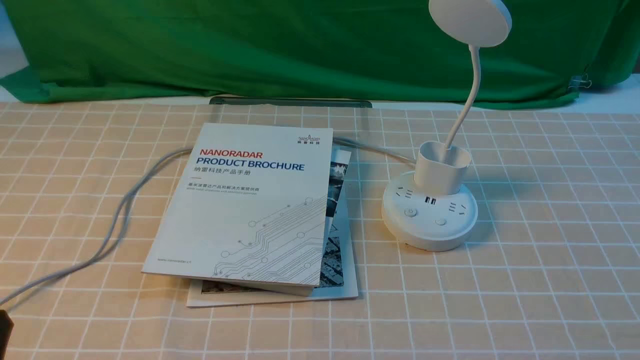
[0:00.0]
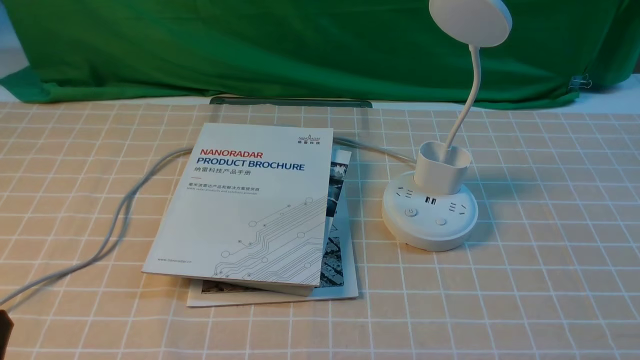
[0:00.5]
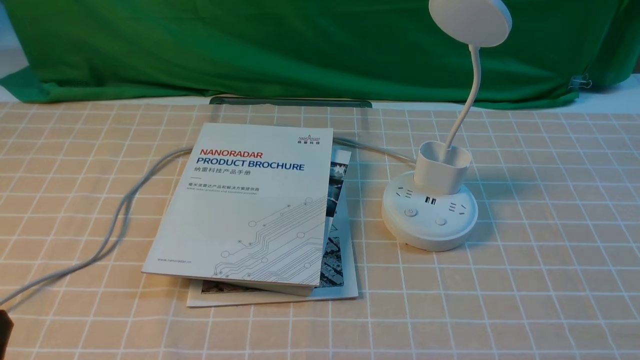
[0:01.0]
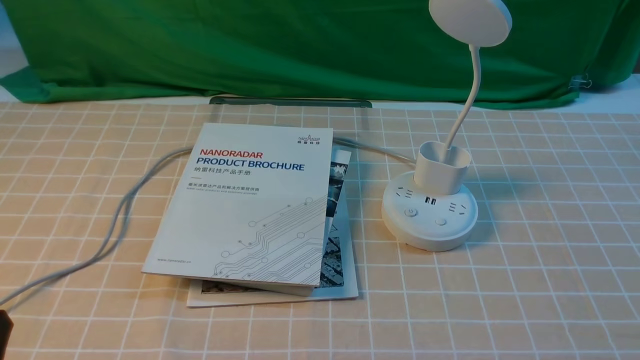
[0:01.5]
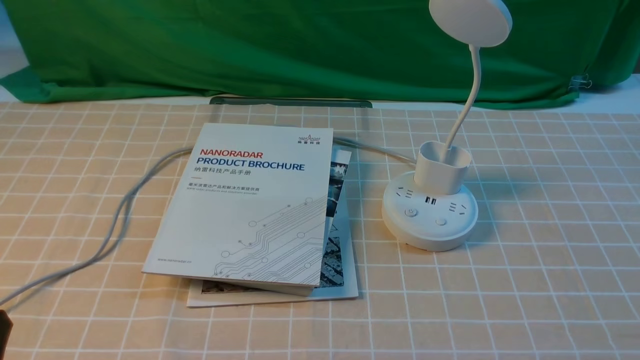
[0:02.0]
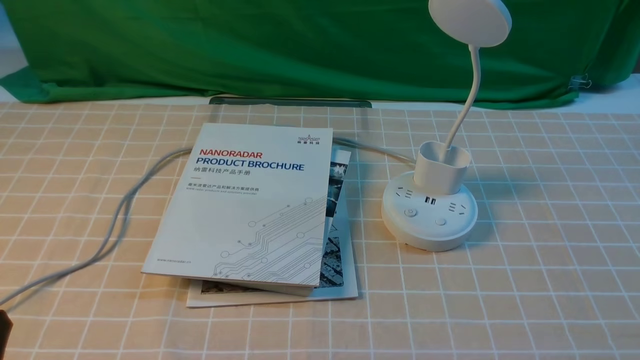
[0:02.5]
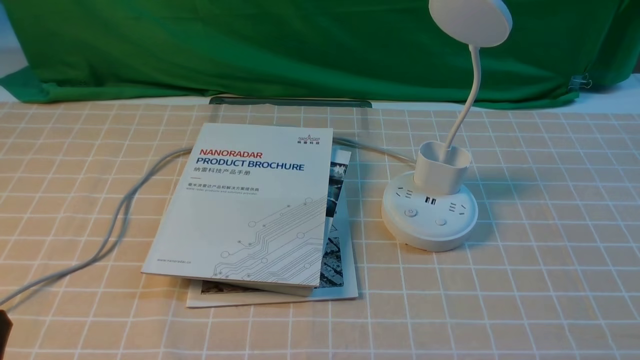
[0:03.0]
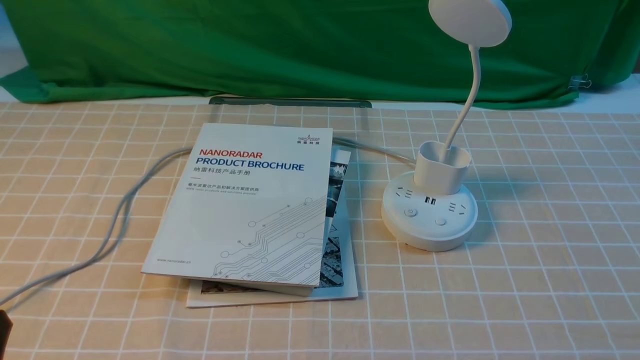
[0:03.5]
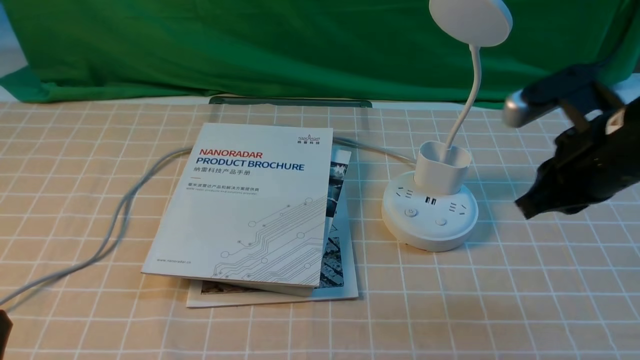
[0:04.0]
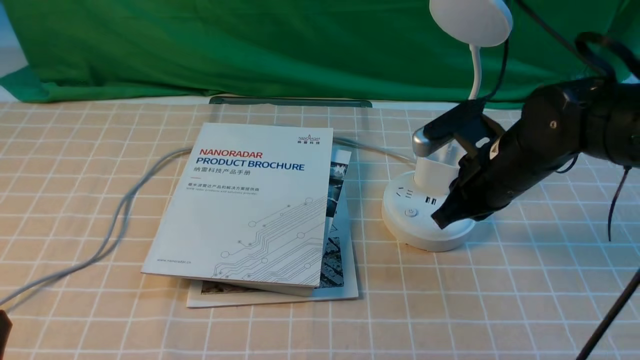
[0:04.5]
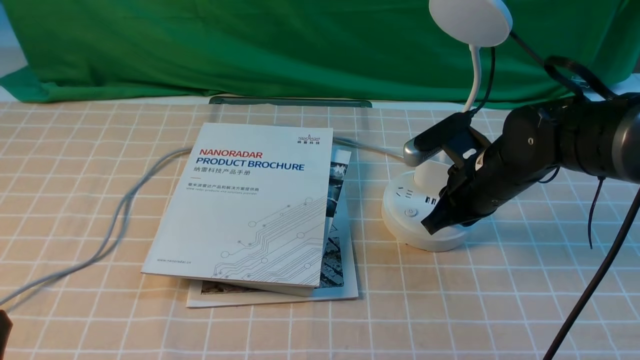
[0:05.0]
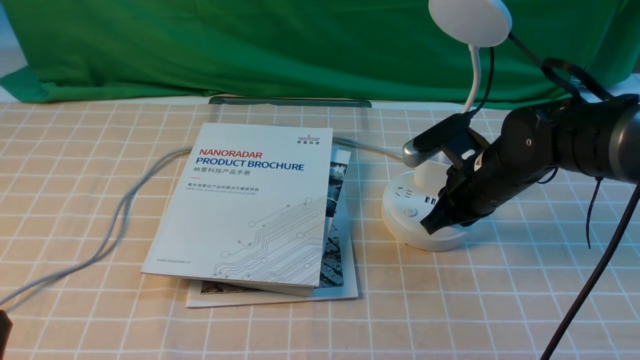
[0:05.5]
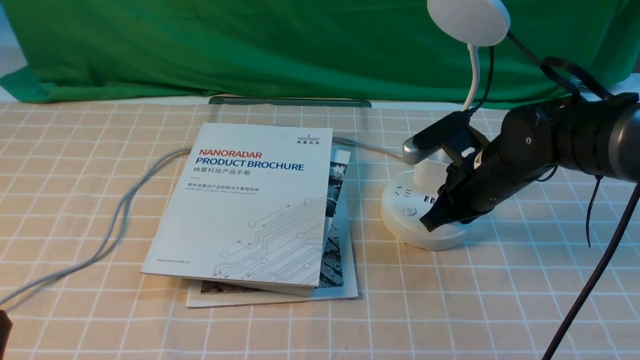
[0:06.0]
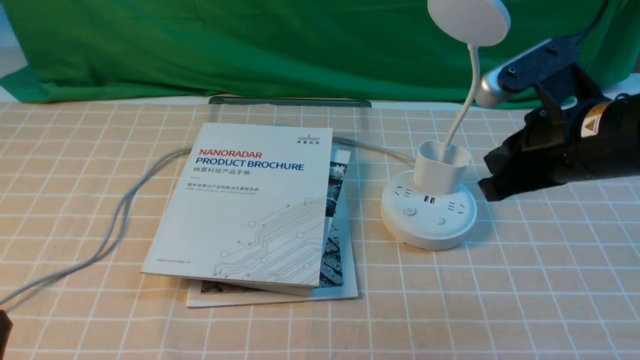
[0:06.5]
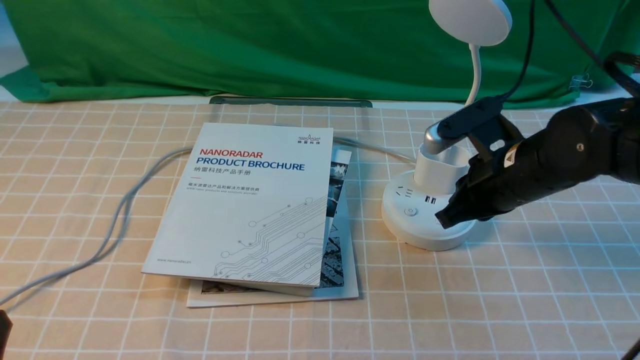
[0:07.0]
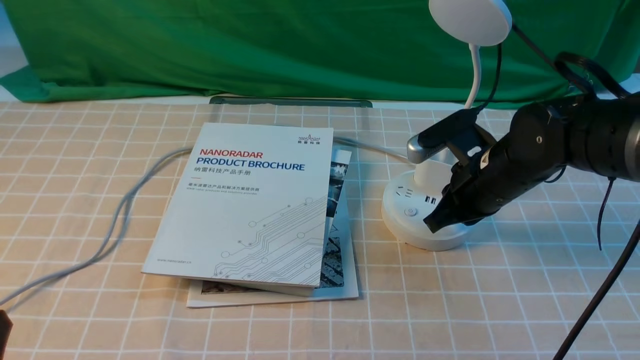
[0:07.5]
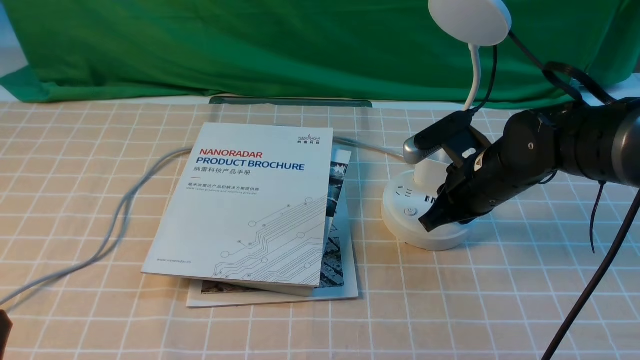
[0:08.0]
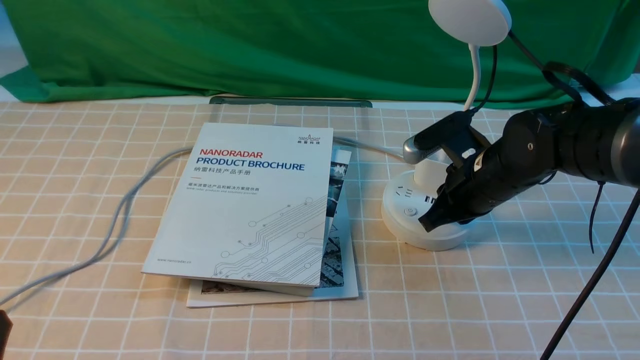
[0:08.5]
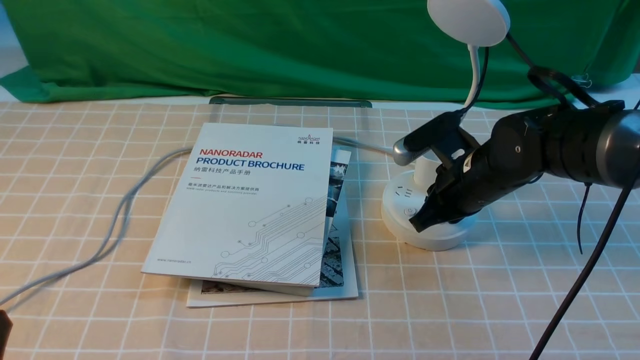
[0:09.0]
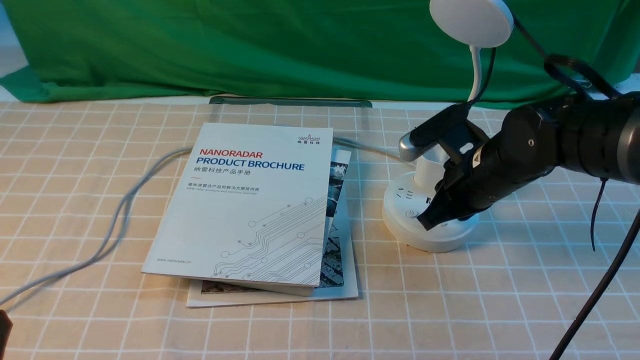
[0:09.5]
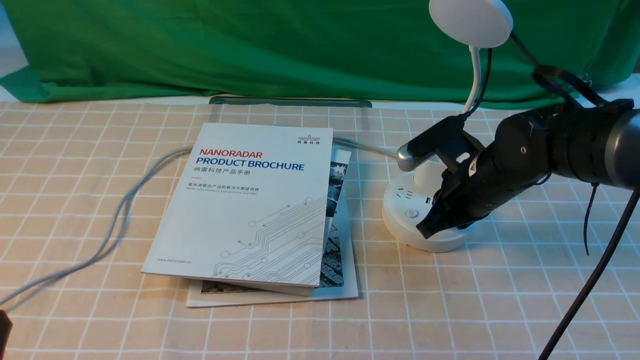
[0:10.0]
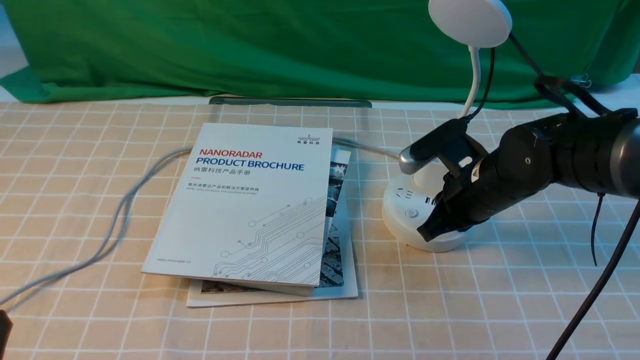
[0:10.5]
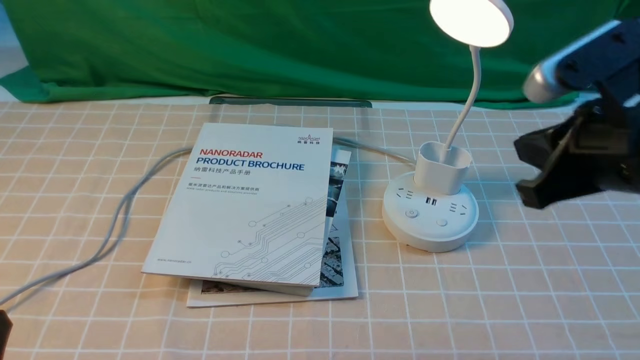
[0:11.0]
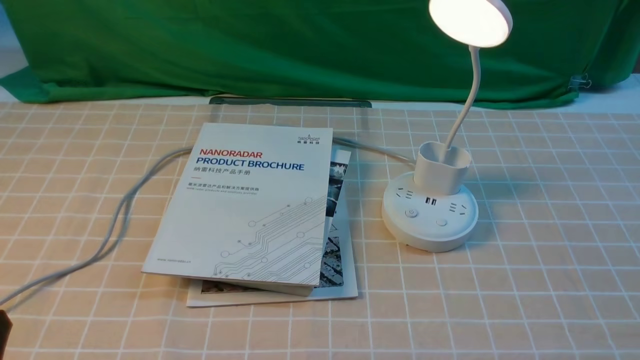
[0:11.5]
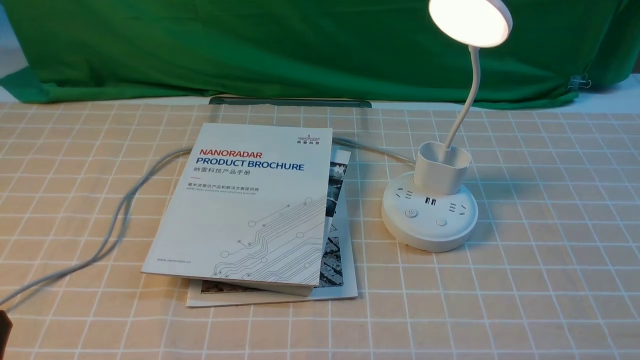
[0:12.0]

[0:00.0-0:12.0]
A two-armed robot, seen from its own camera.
Step, 0:00.0 to 0:06.0: use the right arm to press the button switch on the lamp holder.
0:02.0 to 0:04.0: The right gripper goes roughly 25 cm forward and upward, and closes up.
0:04.0 to 0:06.0: The right gripper travels downward, forward and to the left by roughly 15 cm.
0:06.0 to 0:08.0: The right gripper goes upward and returns, about 10 cm each way.
0:08.0 to 0:10.0: Neither gripper changes place.
0:10.0 to 0:12.0: The right gripper moves backward and to the right, about 35 cm.

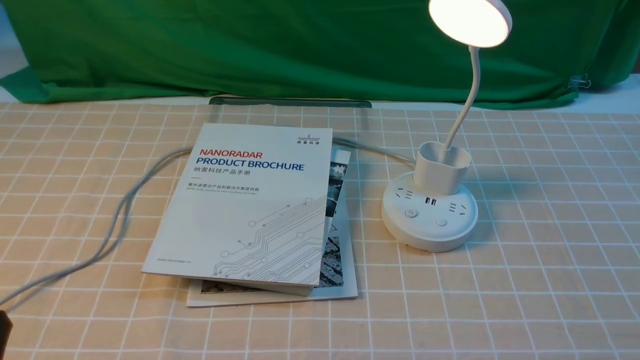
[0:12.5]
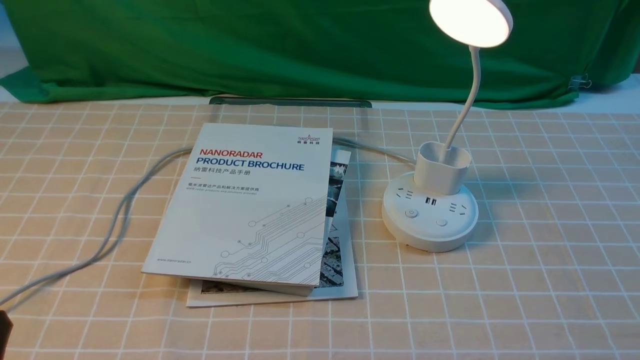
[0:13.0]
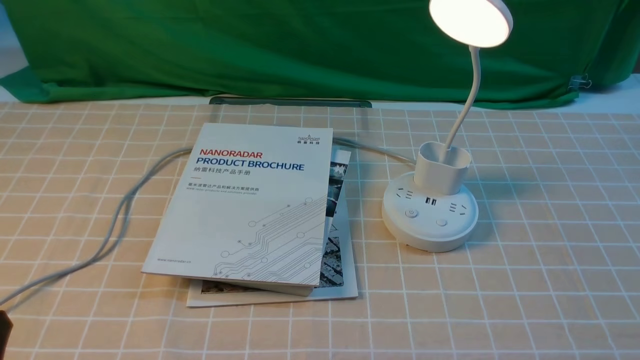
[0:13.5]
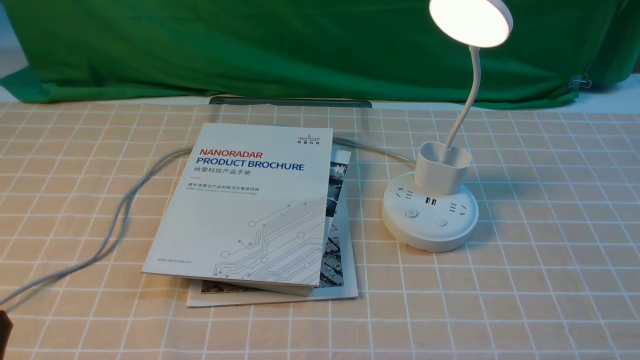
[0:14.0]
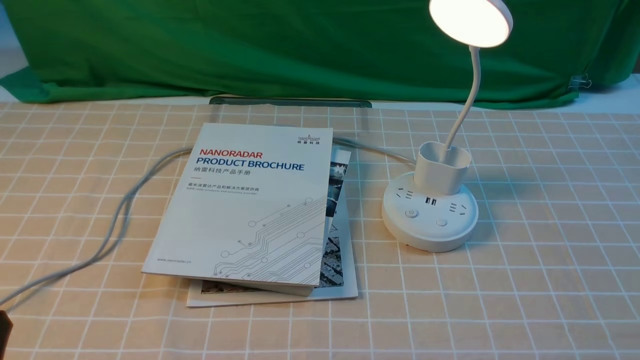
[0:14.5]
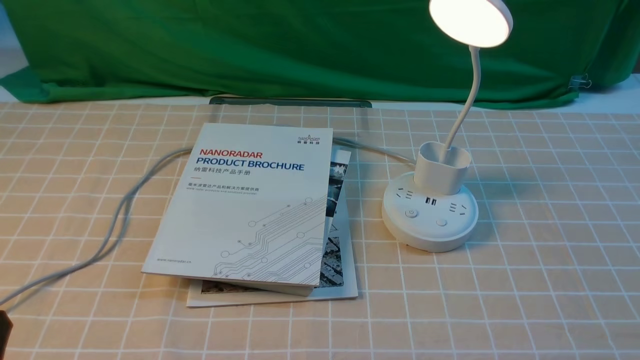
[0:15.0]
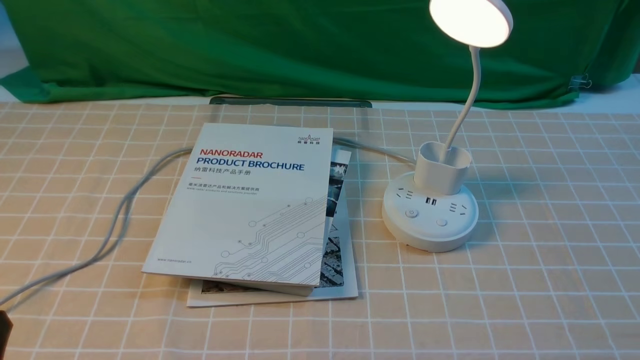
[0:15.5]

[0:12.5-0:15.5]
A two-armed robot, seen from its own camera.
0:14.0 to 0:15.5: Both grippers stay put.
